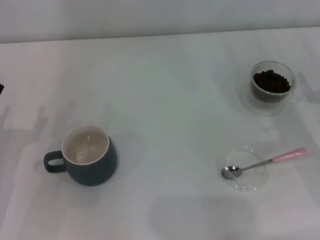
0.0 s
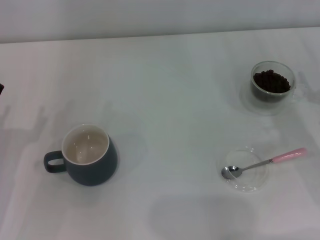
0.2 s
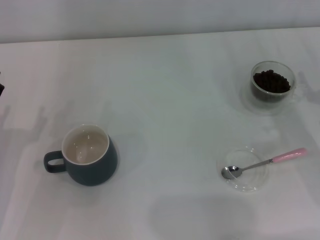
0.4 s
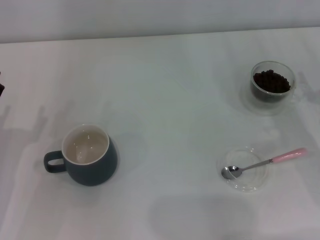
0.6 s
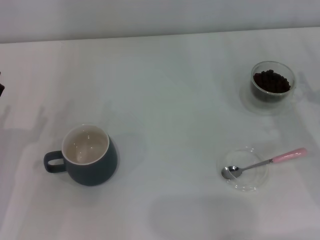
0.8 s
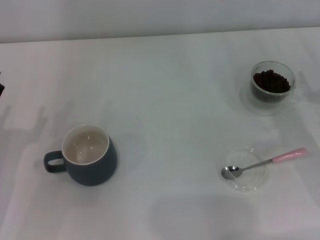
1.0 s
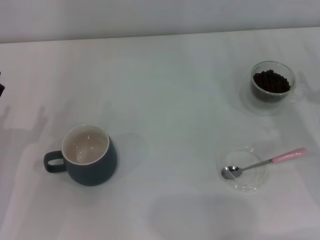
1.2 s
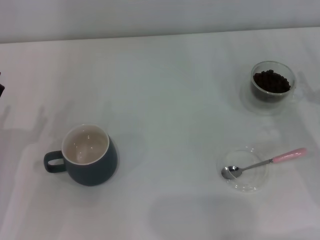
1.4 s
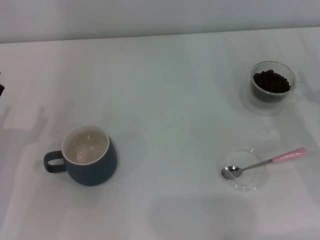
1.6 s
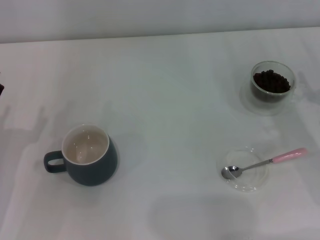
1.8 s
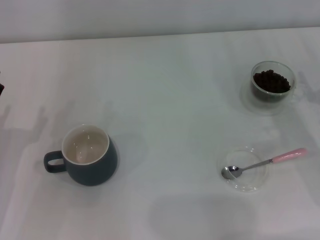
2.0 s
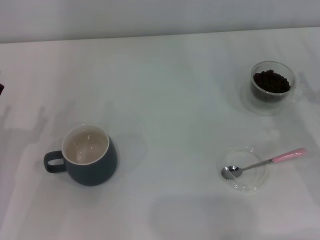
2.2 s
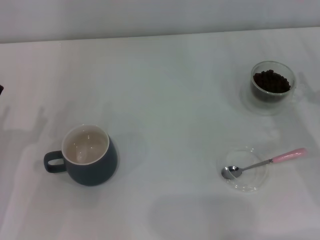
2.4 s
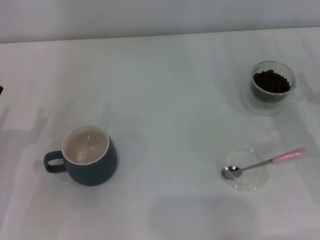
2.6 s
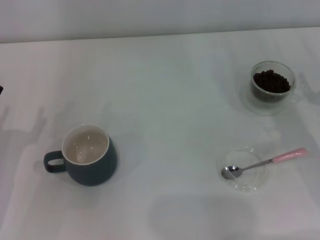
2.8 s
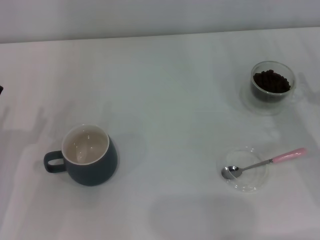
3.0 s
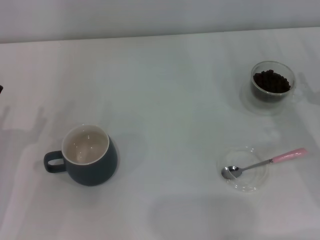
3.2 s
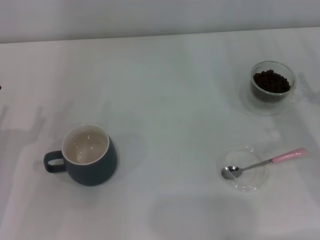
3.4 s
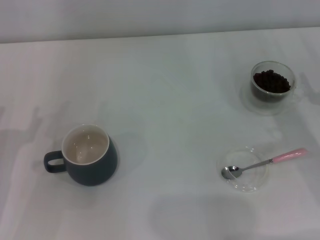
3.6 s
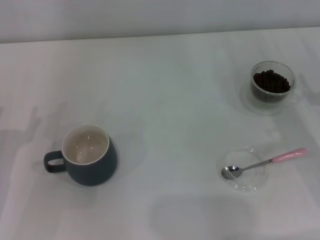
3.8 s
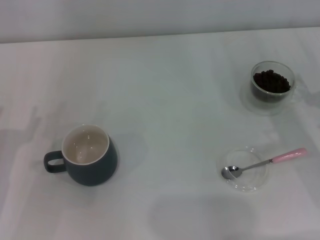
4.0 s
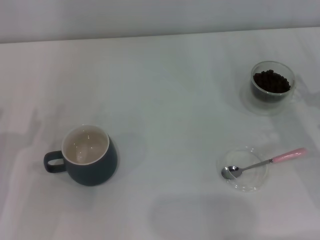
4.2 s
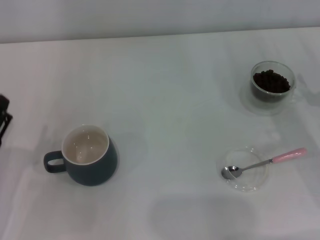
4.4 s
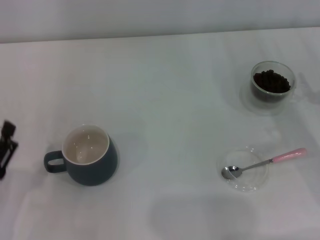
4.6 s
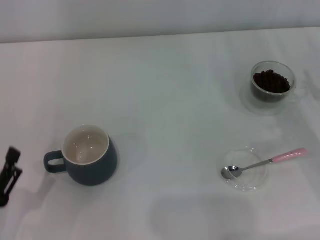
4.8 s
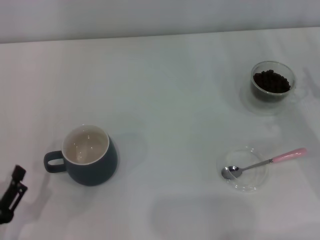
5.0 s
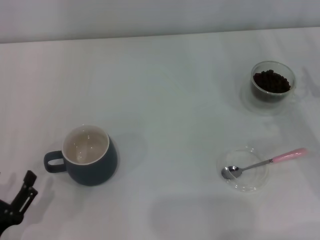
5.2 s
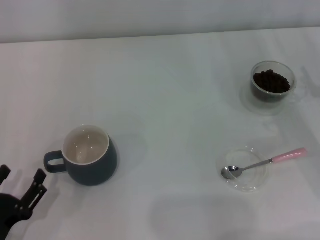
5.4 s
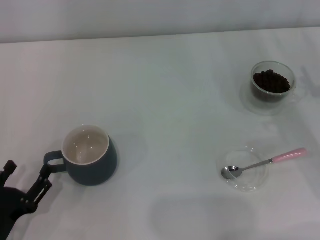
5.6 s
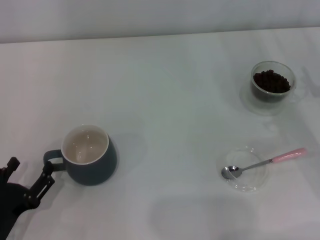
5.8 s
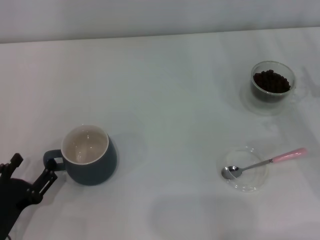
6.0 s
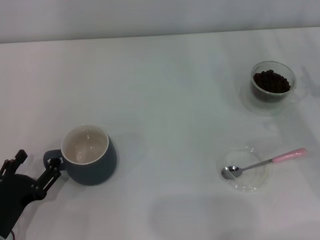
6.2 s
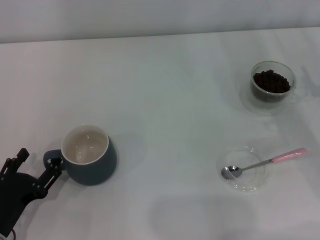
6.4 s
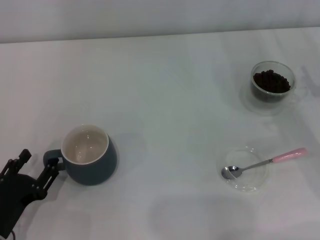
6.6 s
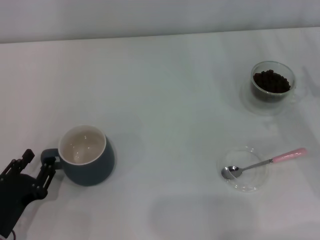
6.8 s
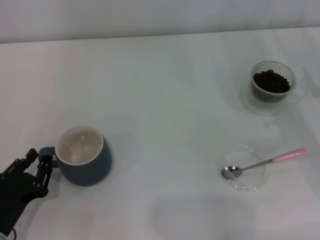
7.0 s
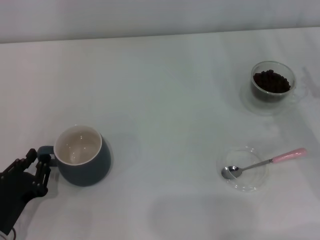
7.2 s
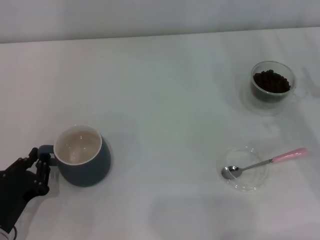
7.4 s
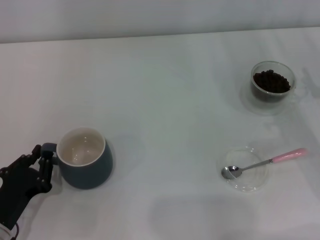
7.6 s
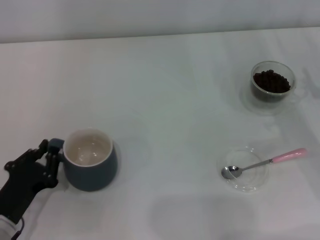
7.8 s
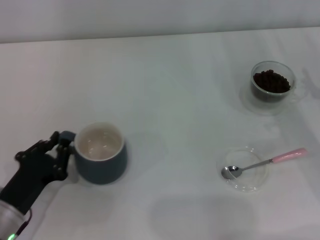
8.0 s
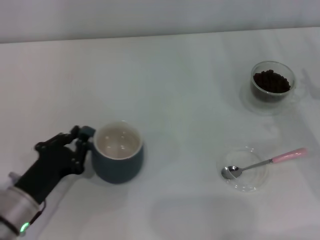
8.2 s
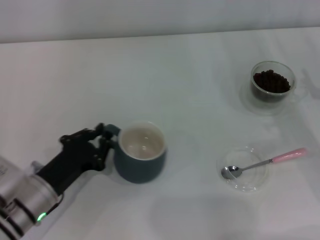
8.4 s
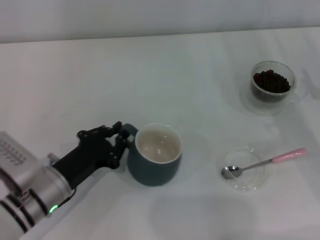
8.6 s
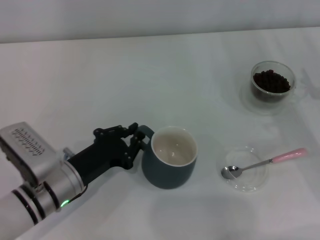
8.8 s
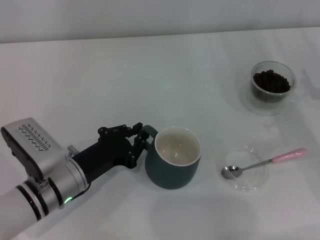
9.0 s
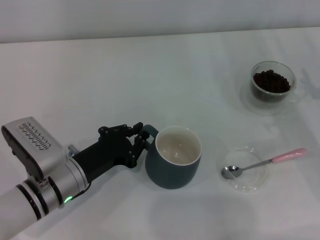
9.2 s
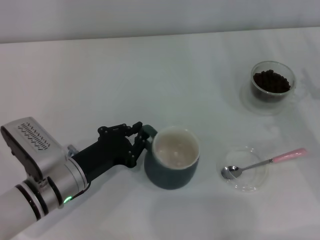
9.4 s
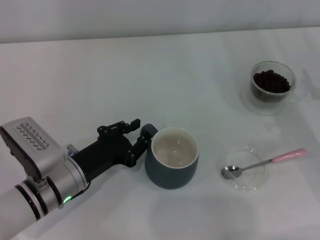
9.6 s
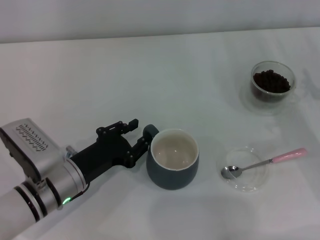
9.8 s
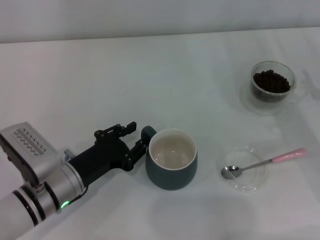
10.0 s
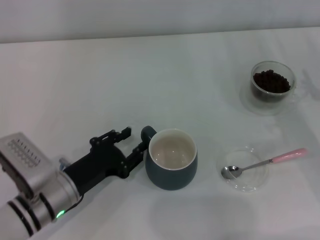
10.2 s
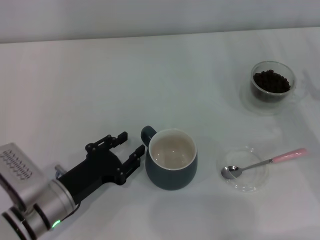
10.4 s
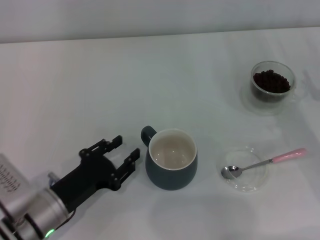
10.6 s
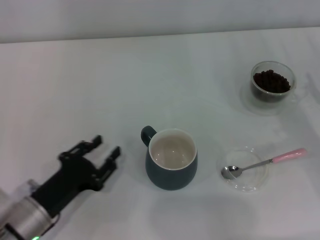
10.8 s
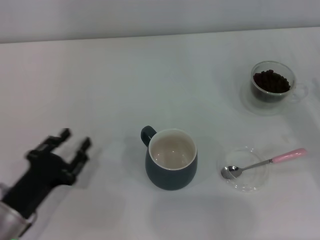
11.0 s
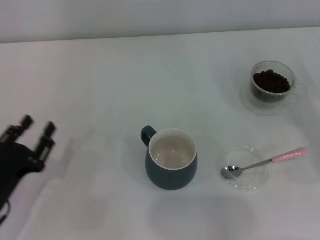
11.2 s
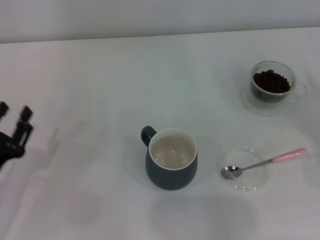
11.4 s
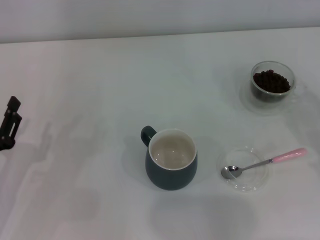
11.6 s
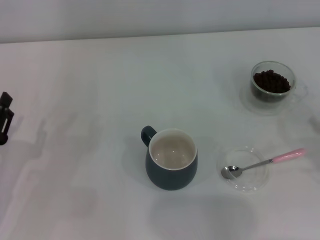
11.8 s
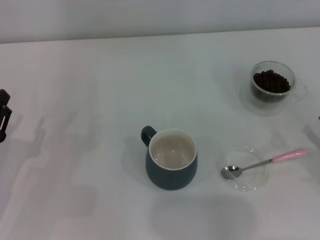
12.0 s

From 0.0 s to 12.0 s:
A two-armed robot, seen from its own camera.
Task of the whole recording: Use a pink spoon to take out the coffee beans from the glass and pour them into the gray cup.
Step, from 0.0 s to 10.4 s: Move the cup to the center of view with the left gripper.
From 0.0 s to 3.0 s: Both grippers stay put.
From 4.4 s to 6.0 s: The left gripper changes place by roughly 5 cm.
From 6.0 s to 7.6 s: The left gripper closes.
From 7.6 s to 9.0 s: The left gripper travels to the right and forward by approximately 10 cm.
From 9.0 s to 10.4 s: The left gripper opens up.
From 10.4 s to 12.0 s: The right gripper shifts roughly 10 cm backward, while the left gripper moves to the left, approximately 10 cm.

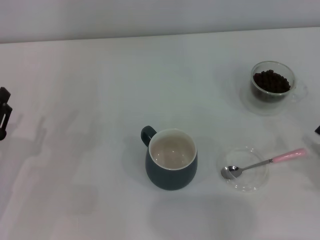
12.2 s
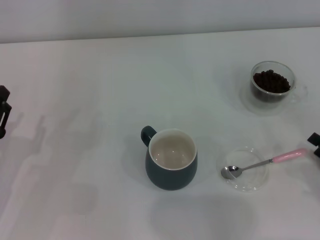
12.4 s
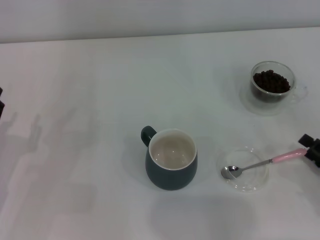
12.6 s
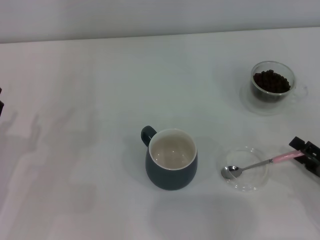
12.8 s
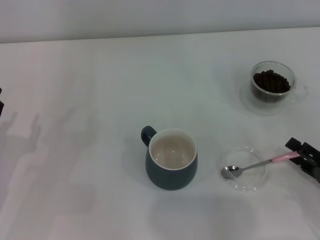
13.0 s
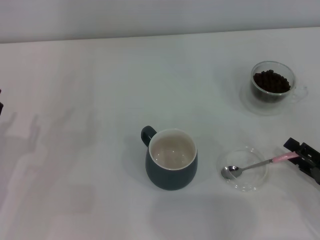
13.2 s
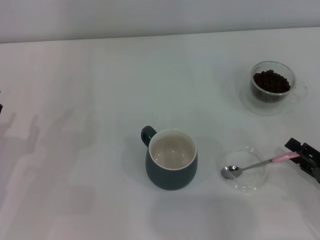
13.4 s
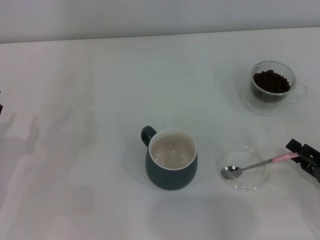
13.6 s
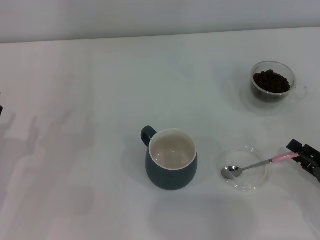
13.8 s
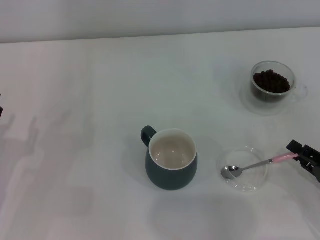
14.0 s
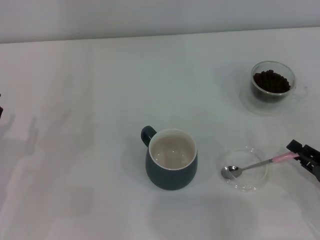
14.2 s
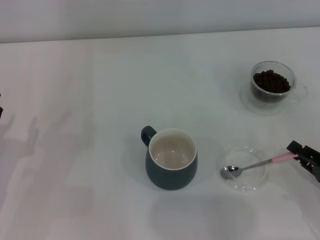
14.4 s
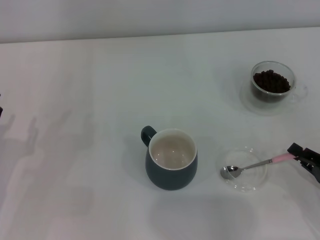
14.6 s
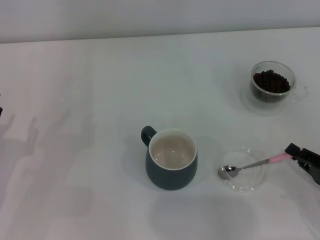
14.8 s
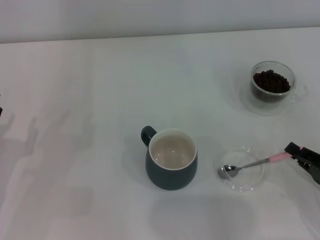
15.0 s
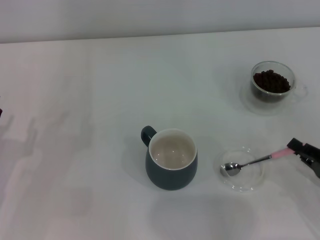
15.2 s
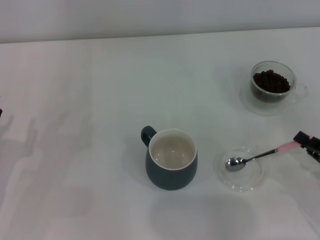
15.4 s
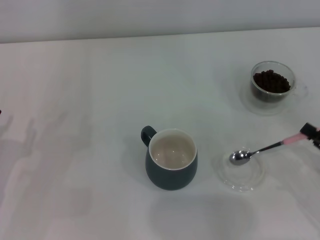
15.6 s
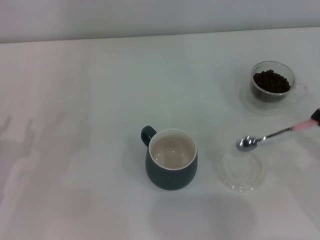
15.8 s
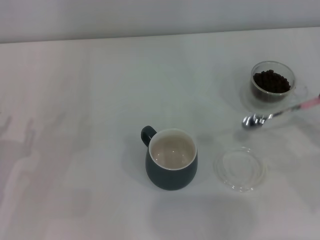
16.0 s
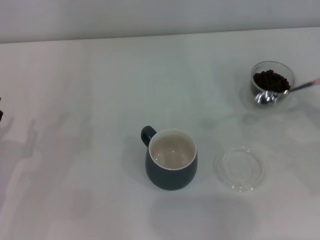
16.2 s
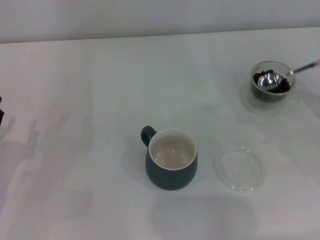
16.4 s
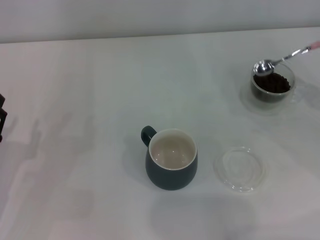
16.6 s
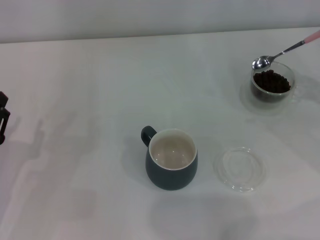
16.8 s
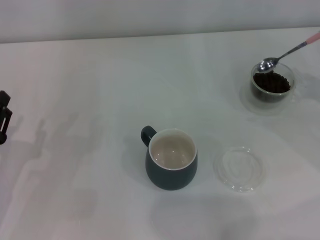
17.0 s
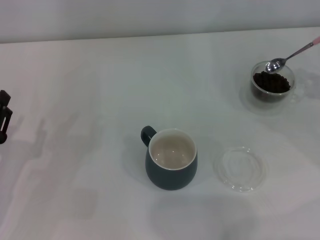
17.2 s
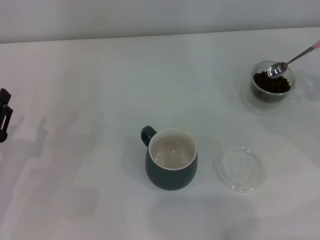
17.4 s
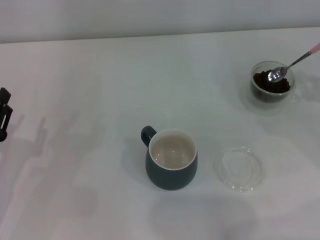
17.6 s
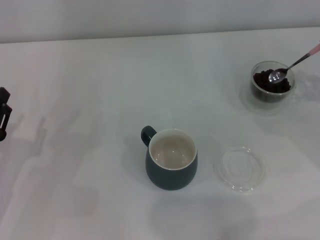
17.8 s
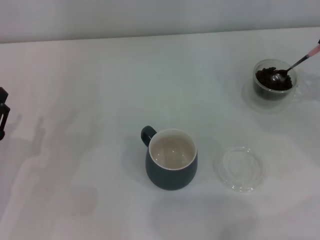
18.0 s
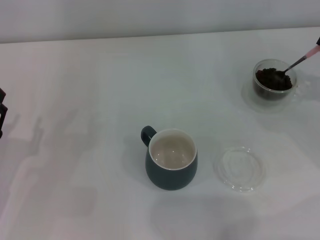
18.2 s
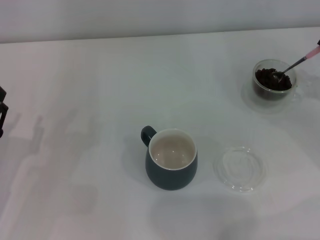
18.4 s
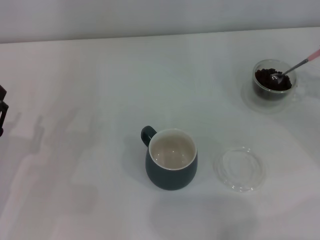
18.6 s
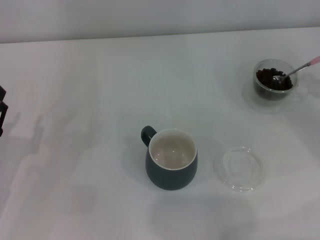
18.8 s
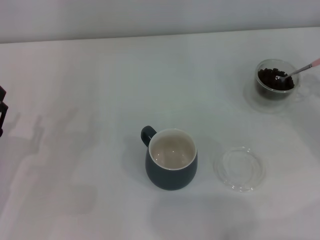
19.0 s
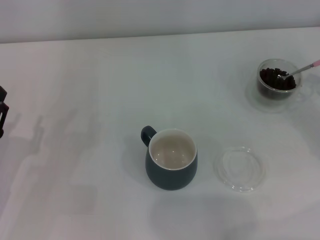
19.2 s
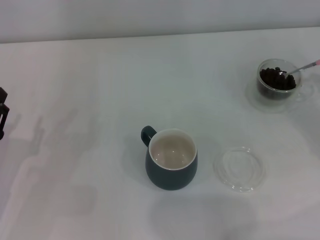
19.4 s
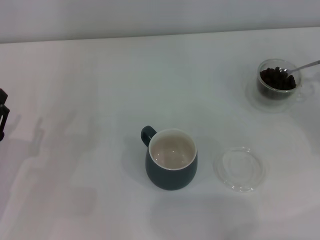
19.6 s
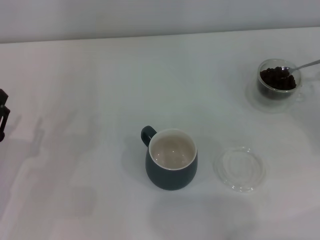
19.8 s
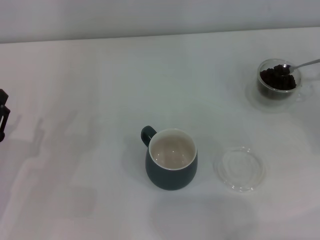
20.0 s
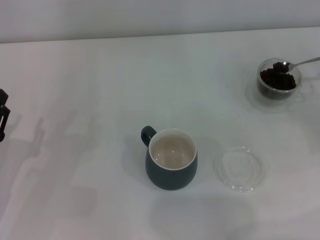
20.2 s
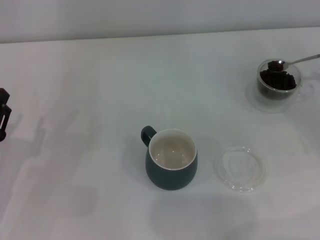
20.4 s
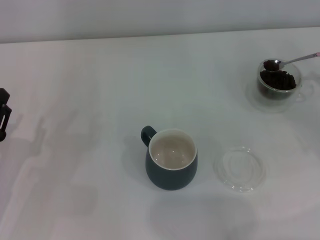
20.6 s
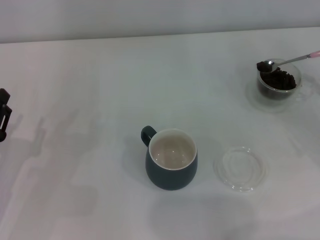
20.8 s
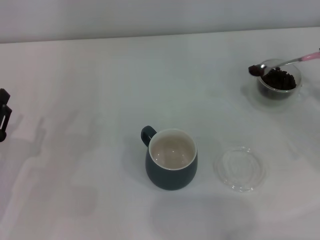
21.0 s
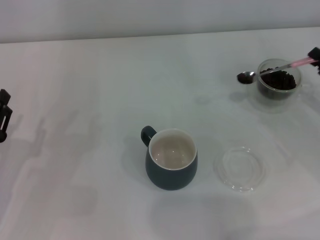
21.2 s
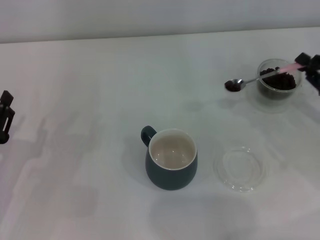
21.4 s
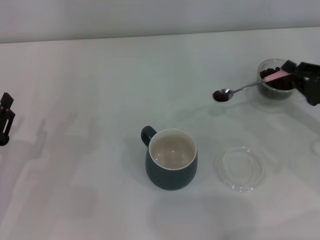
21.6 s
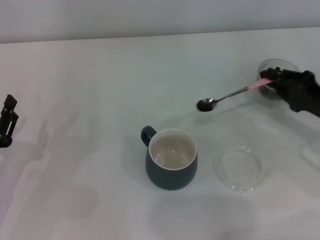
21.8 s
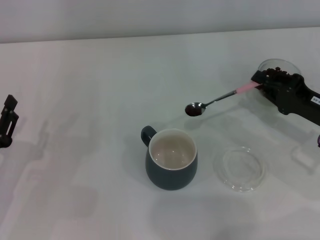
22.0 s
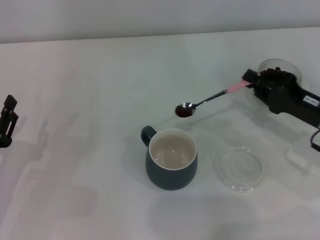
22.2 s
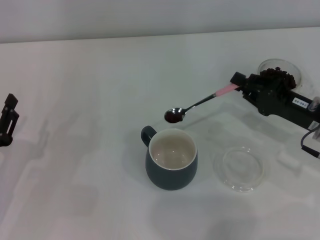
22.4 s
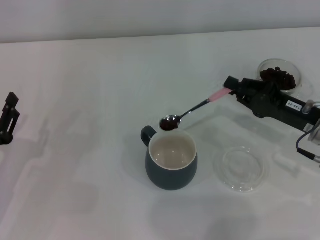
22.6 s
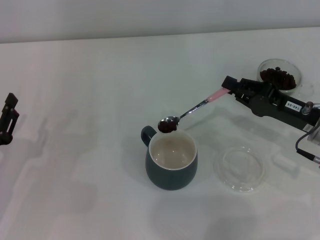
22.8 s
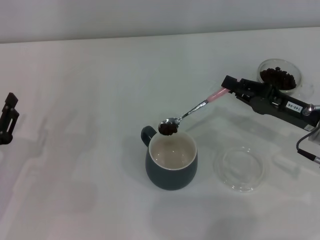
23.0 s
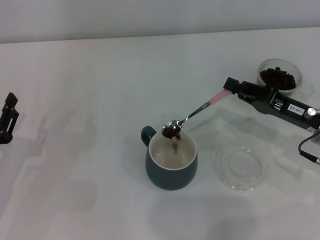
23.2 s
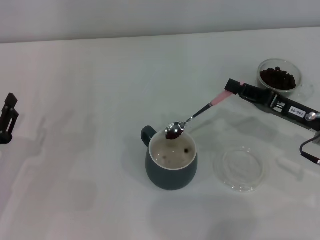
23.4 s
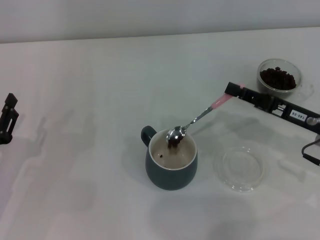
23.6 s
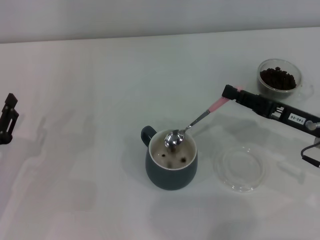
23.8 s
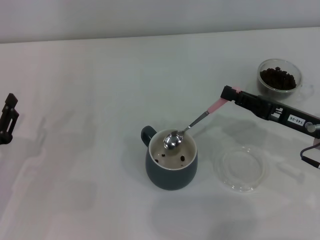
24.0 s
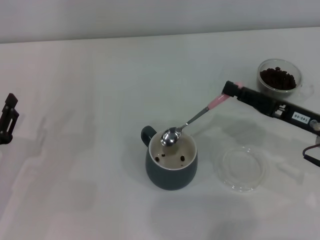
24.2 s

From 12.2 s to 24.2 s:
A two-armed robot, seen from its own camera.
Task of the whole recording: Use a pink spoon to take out the coffee beans from the glass and pour them into the gray cup.
Step, from 12.2 s to 15.6 s: Pick up the spoon with the right gripper.
Step, from 16.0 s to 24.0 s: Scoop a spoonful of beans into the cup with the right gripper.
From 12.2 s to 13.8 s: The grippers move only a little.
From 13.8 s to 15.2 s: The right gripper closes.
From 15.2 s to 16.6 s: The right gripper moves forward, upward and to the right, roughly 15 cm.
From 19.8 s to 21.2 s: The grippers make only small movements.
From 21.2 s to 22.6 s: The right gripper heads to the left, covering roughly 10 cm.
